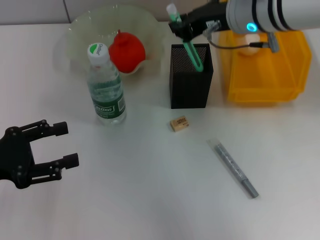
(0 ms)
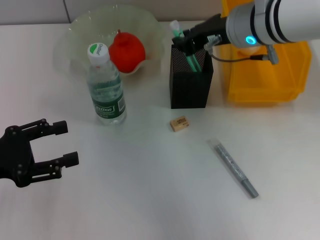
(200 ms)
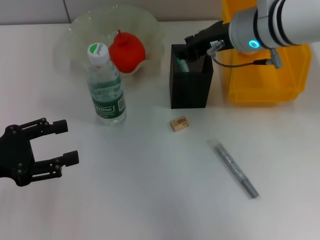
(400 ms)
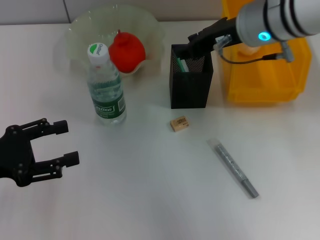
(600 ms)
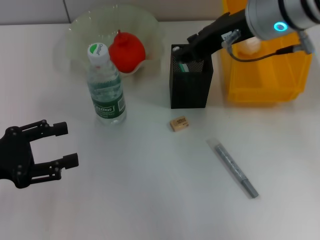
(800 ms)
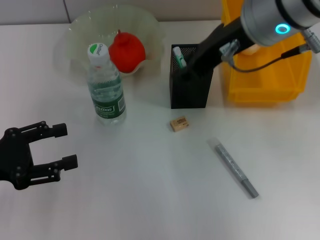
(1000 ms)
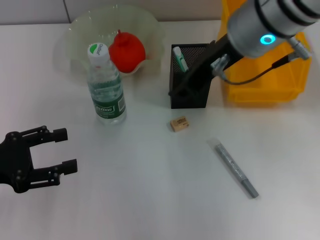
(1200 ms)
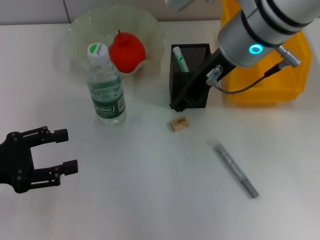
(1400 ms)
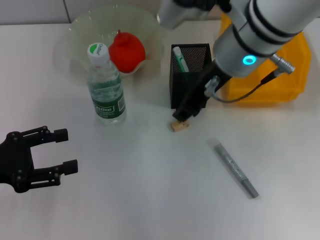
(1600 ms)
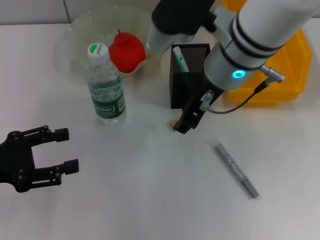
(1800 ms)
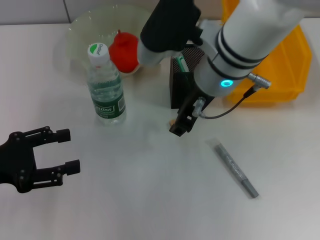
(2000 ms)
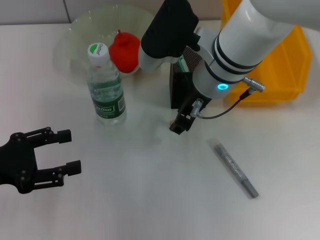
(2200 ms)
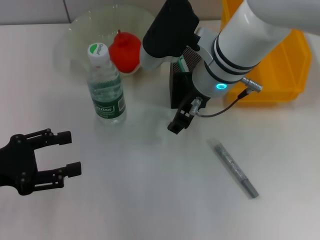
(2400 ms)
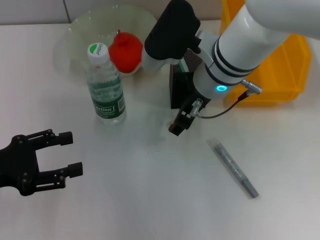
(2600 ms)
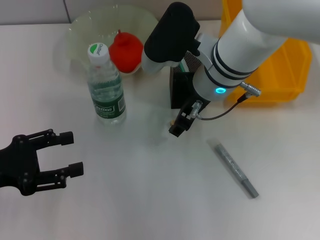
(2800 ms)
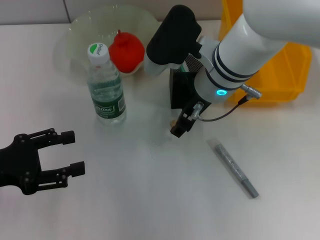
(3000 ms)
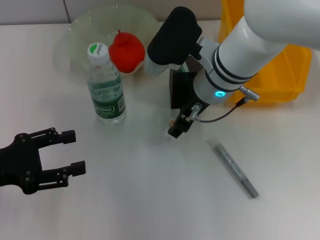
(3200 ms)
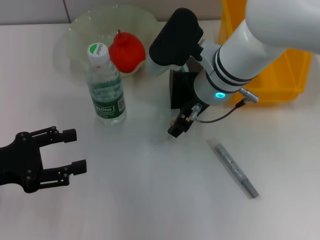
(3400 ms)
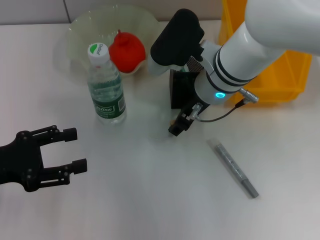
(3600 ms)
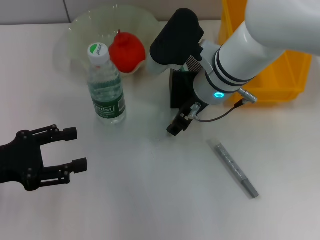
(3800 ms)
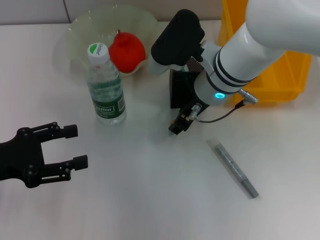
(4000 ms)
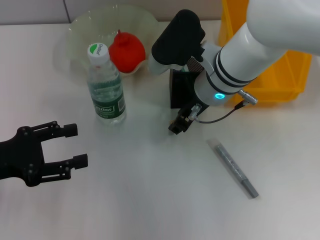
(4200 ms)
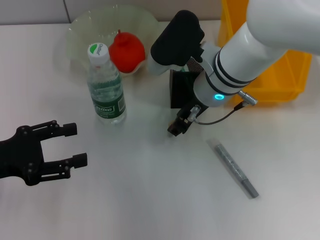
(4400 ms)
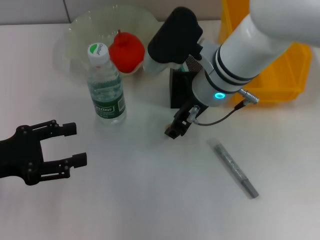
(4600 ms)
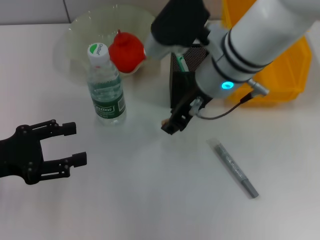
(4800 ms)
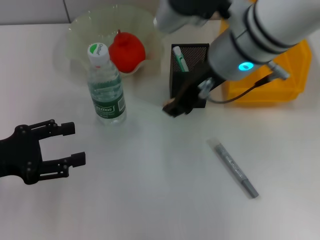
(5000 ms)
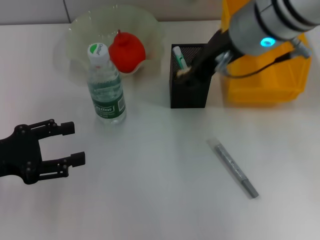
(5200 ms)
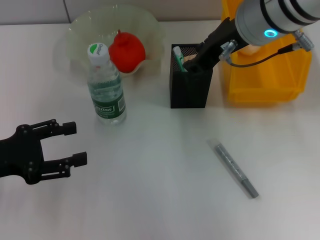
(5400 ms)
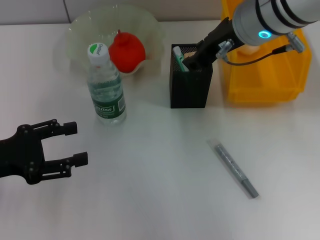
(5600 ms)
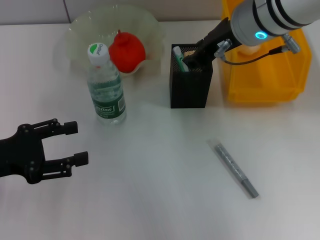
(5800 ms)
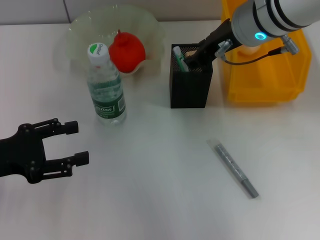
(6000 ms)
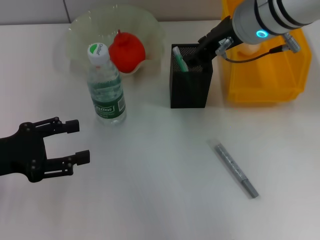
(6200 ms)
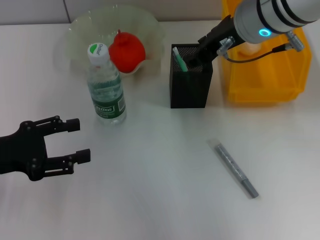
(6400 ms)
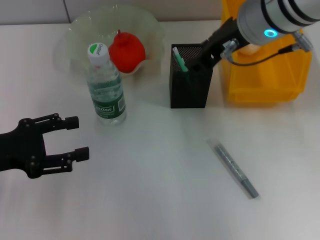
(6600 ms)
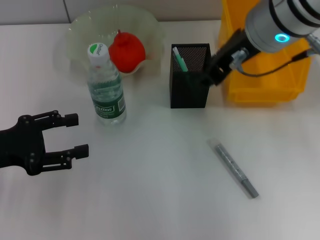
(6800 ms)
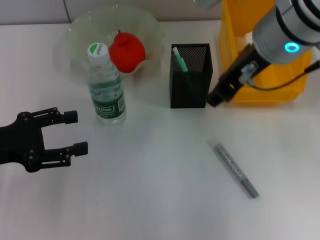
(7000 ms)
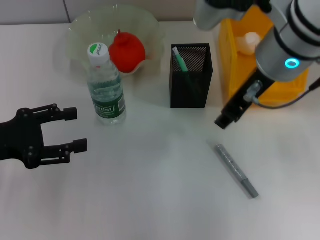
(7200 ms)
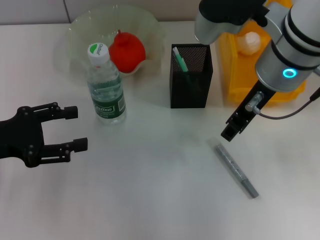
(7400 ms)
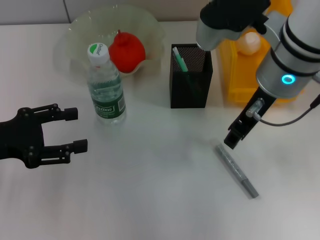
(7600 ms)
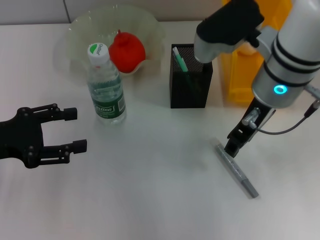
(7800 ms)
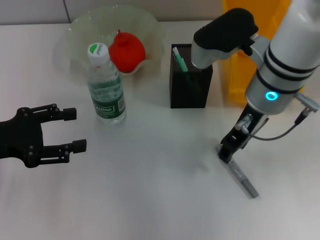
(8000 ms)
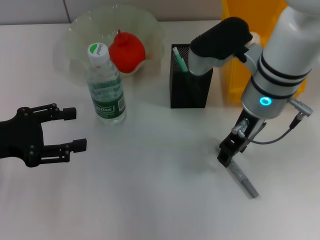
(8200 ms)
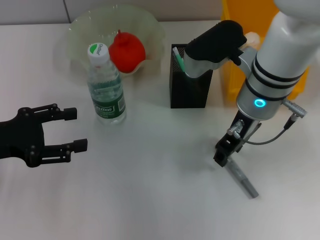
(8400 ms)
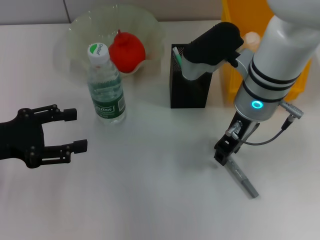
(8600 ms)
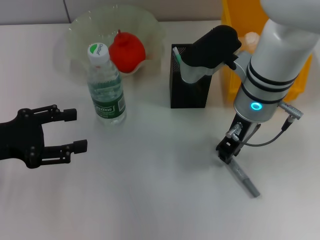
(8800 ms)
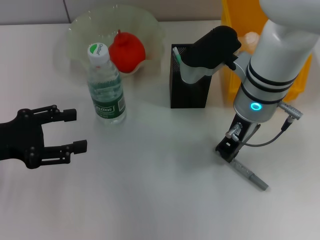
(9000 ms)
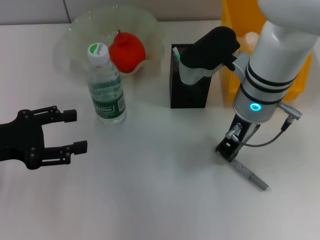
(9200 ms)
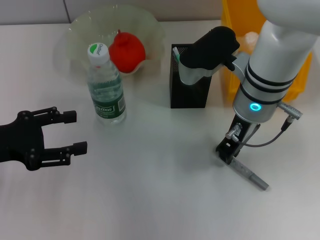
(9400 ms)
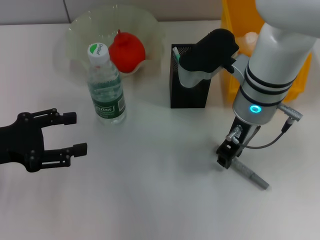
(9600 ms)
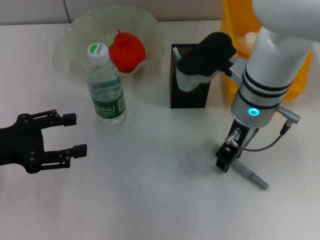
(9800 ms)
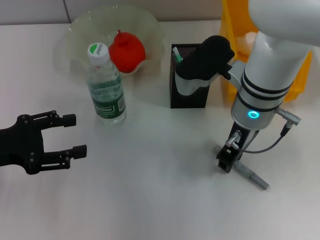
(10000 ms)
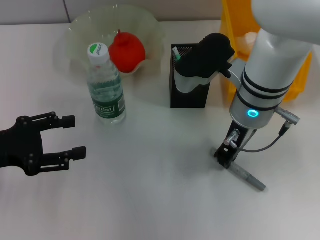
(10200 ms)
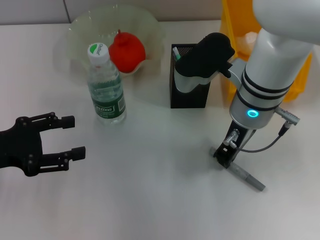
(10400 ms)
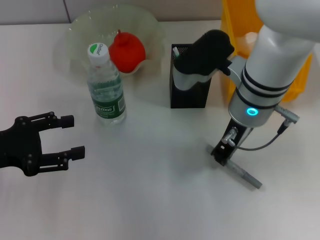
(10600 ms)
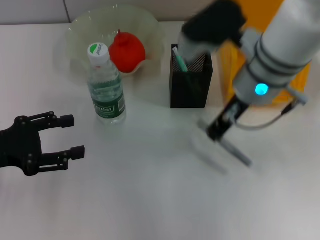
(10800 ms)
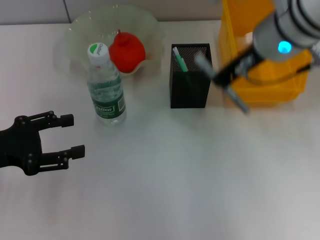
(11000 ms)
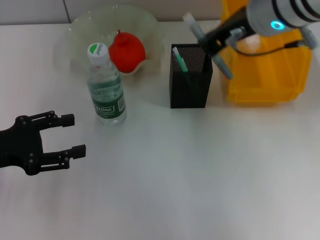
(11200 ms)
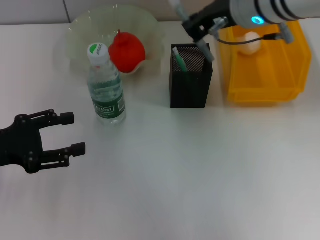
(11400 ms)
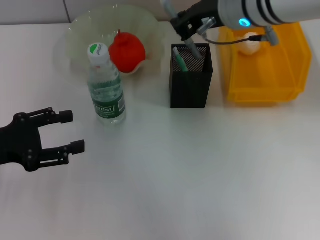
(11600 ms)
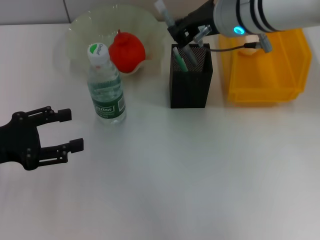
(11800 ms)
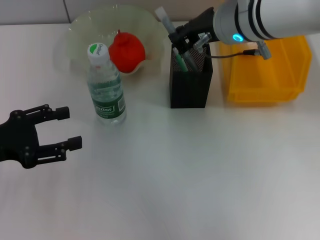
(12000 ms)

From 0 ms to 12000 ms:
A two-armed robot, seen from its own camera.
Step, from 400 ms to 4000 ms: Grab the eraser with the right hand.
Step, from 4200 ms to 6000 ms: Put the eraser into the pen holder with the right hand.
Step, from 6200 ms to 10200 ms: Grab the gray glue with the right hand.
From 0 ms to 1600 ms: The right gripper moves approximately 5 cm upward and comes back.
From 1600 ms to 3000 ms: The right gripper moves downward, roughly 10 cm.
From 3000 ms to 4400 ms: There are only small adjustments of the grippers.
From 4400 ms to 6000 ms: The right gripper shifts about 10 cm upward.
From 7600 ms to 9000 ms: The right gripper is displaced downward by roughly 5 cm, and closes up.
From 9000 ms to 10400 ms: Both grippers stay put.
From 10400 ms to 12000 ms: The right gripper shifts roughly 5 cm upward.

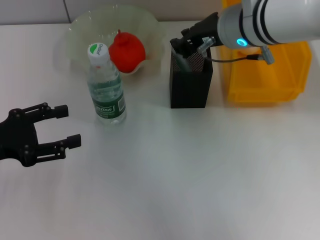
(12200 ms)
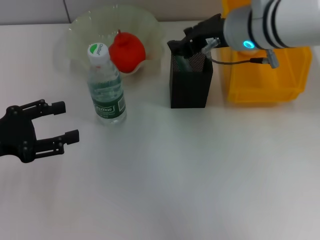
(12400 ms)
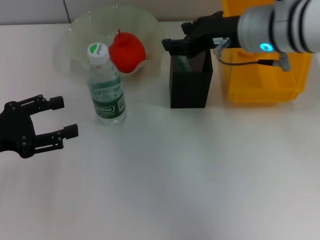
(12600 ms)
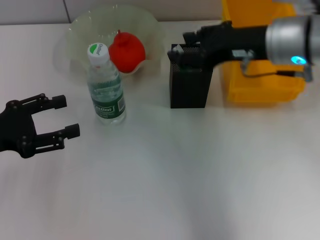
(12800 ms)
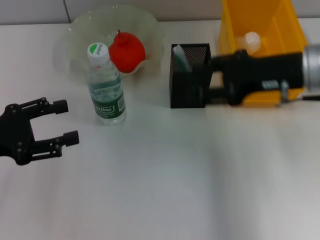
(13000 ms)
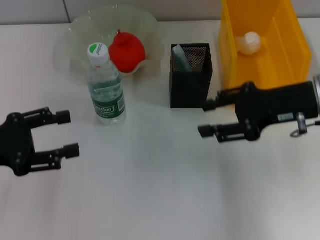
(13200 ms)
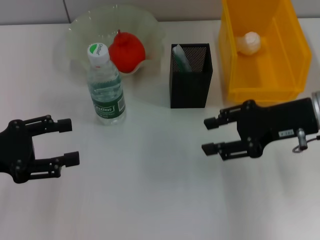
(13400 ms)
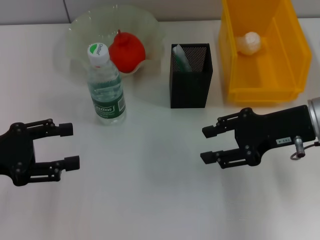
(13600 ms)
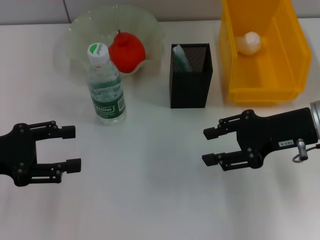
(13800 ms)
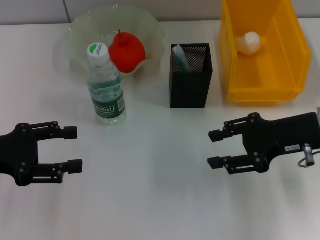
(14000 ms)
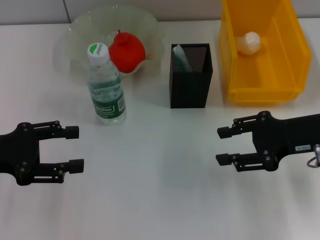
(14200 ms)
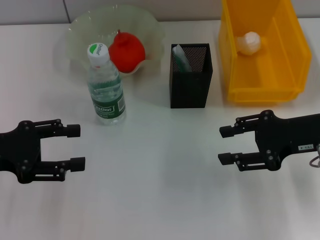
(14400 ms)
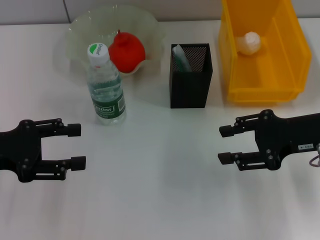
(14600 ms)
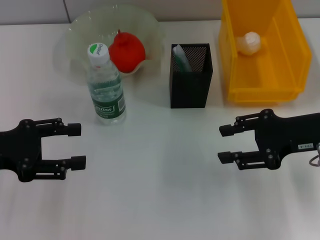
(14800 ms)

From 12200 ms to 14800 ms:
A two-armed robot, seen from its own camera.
From 12200 ms to 13400 ms: The right gripper goes some 15 cm to the right, backward and downward, and opens.
From 13400 ms to 14800 ms: There are only small adjustments of the grippers.

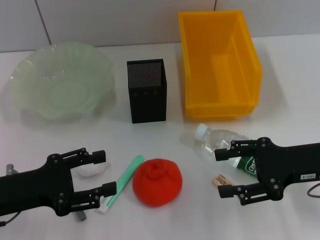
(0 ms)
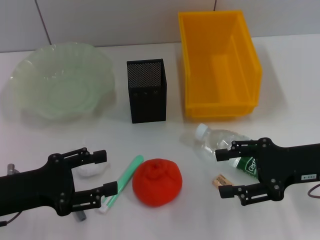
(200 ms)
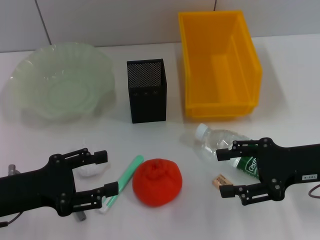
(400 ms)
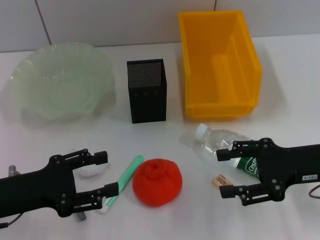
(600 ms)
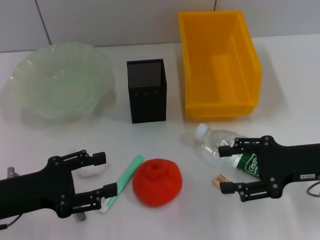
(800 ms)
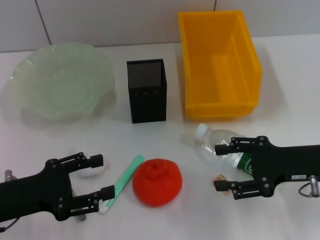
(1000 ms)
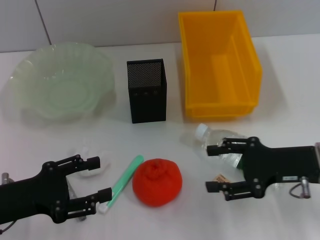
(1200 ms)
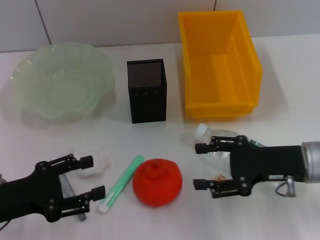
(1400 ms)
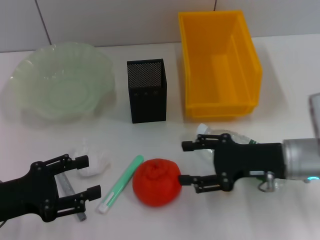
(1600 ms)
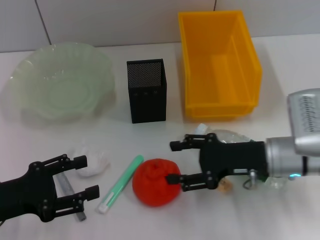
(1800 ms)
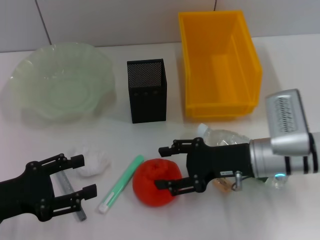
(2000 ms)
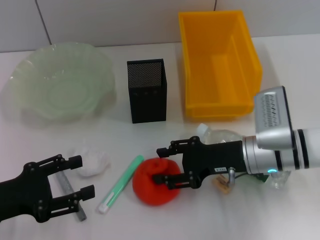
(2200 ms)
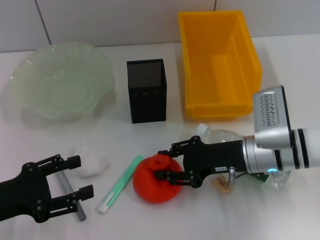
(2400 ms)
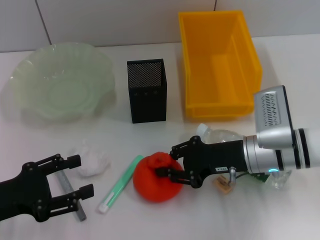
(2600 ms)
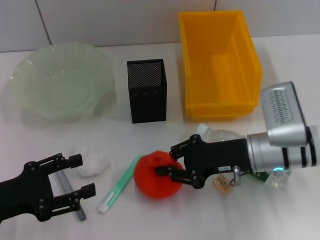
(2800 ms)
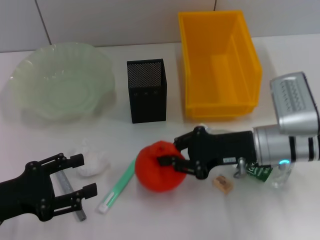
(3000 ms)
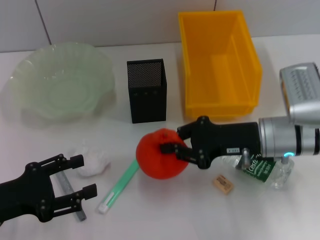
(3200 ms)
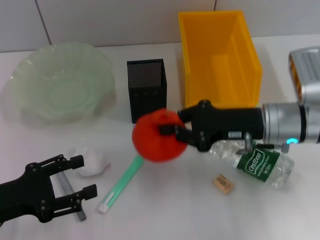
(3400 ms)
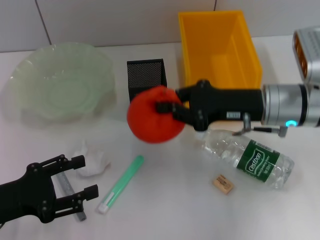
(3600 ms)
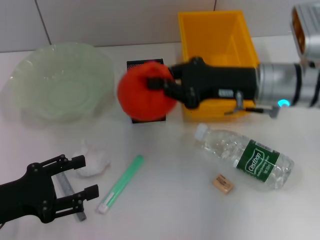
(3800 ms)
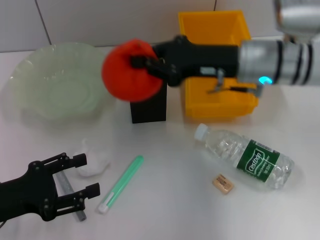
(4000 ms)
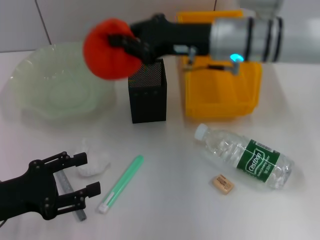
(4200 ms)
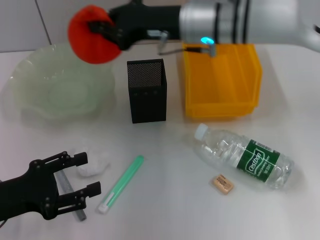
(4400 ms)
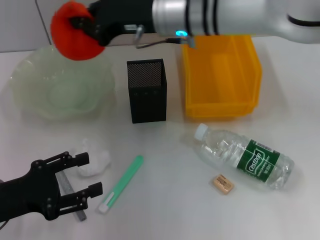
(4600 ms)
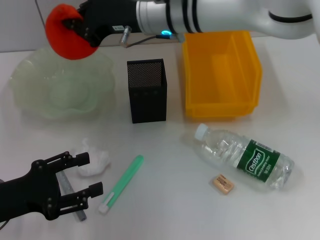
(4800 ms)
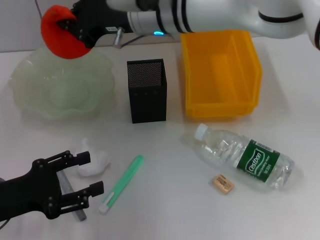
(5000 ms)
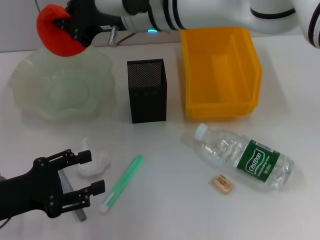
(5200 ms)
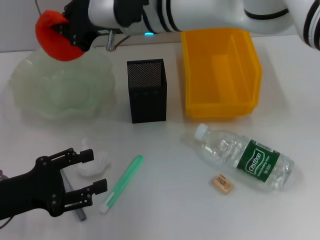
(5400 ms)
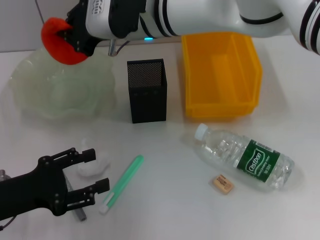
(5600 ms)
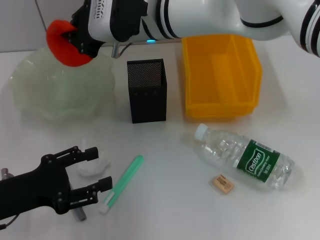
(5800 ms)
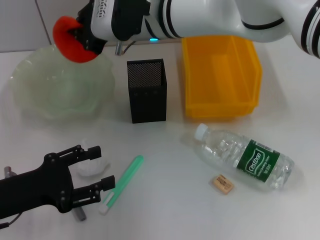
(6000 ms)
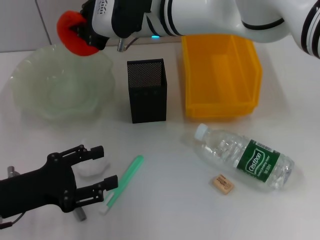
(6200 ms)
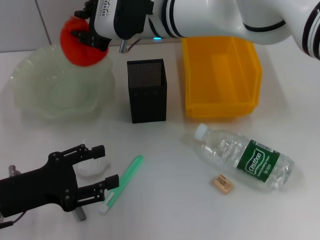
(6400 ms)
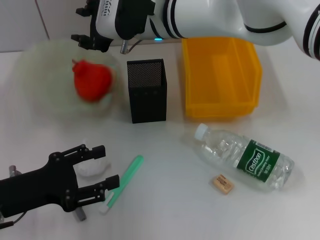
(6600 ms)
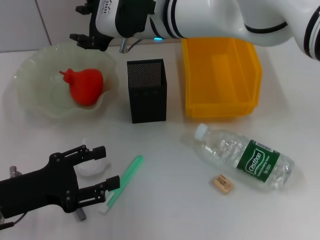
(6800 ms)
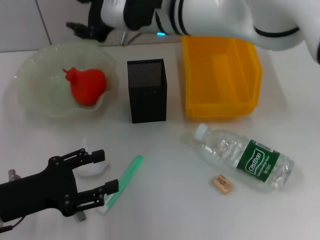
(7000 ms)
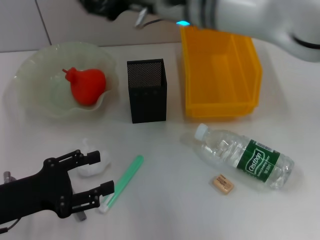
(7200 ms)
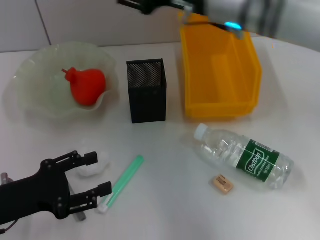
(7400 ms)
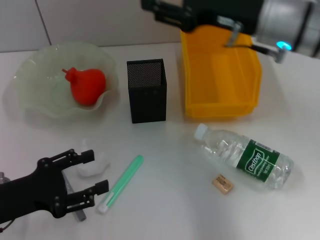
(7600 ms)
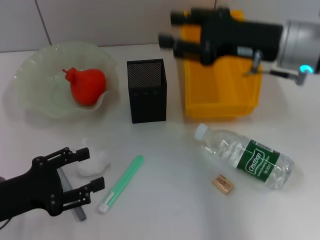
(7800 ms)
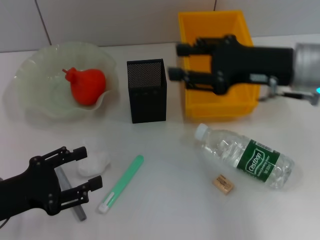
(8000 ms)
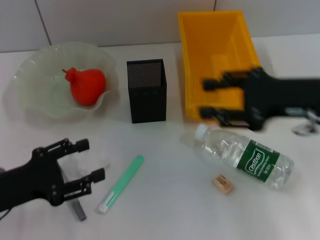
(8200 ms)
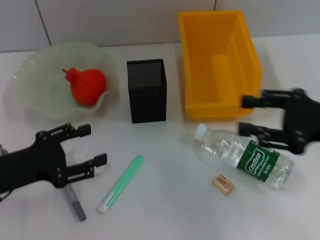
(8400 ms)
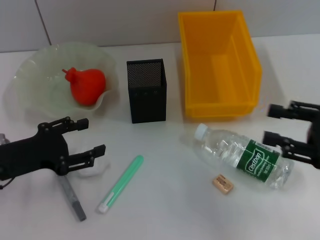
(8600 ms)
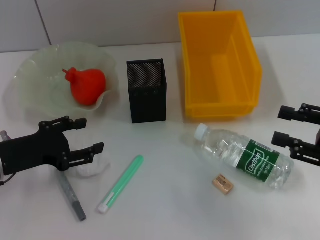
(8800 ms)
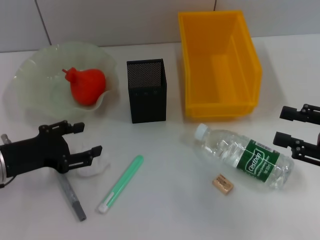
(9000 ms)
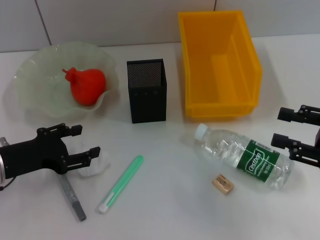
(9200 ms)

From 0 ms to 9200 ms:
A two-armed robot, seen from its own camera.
Step, from 0 ms to 2200 ms: Grab the orange with the right hand.
Step, from 2400 ms to 6800 ms: Place the orange into the fruit bowl with the right hand.
From 0 ms to 1600 ms: The right gripper moves approximately 5 cm.
From 1600 ms to 3000 ms: The right gripper closes.
From 3000 ms to 4600 ms: The right gripper is displaced to the left, upward and forward by approximately 20 cm.
From 6200 ms to 7600 ms: The right gripper moves to the right and backward, approximately 20 cm, and opens its fingers.
From 7600 ms to 9200 ms: The left gripper heads forward, covering roughly 5 cm; the right gripper is displaced to the right, backward and downward by about 25 cm.
